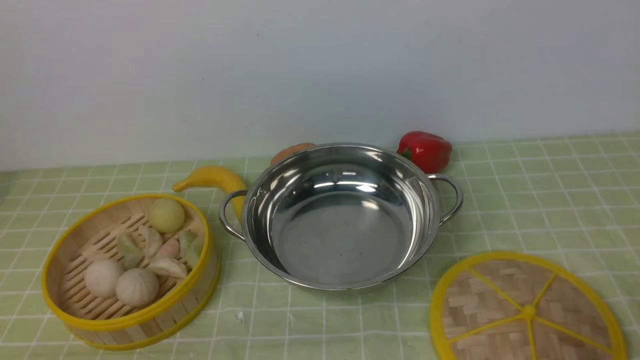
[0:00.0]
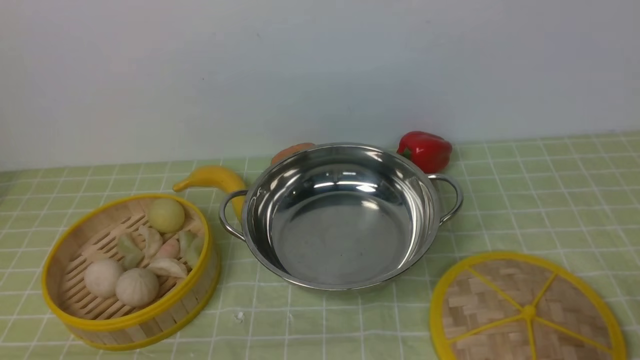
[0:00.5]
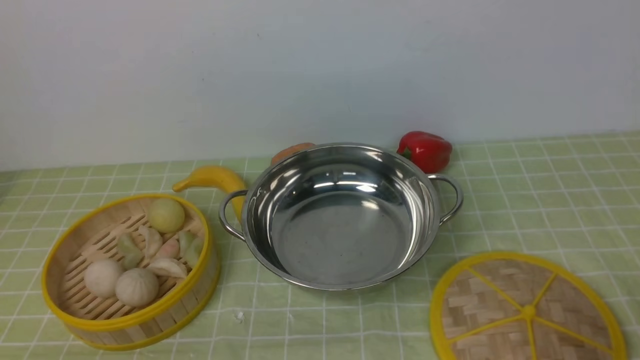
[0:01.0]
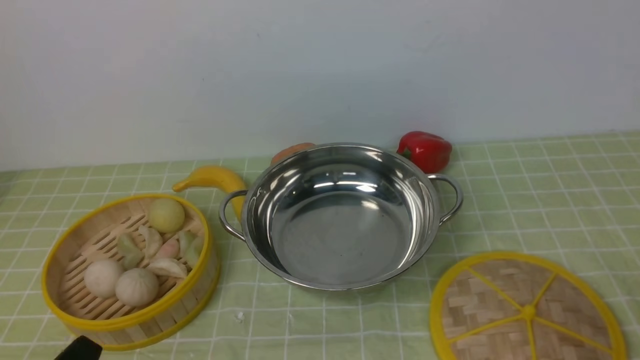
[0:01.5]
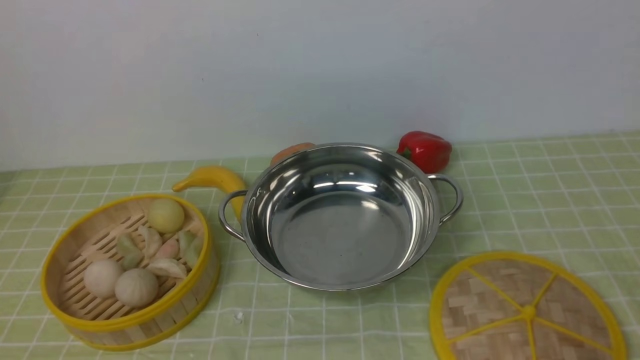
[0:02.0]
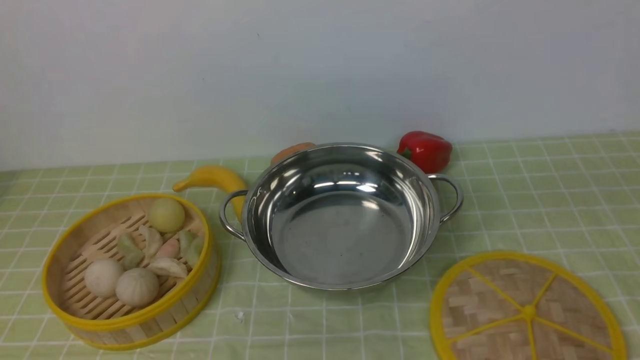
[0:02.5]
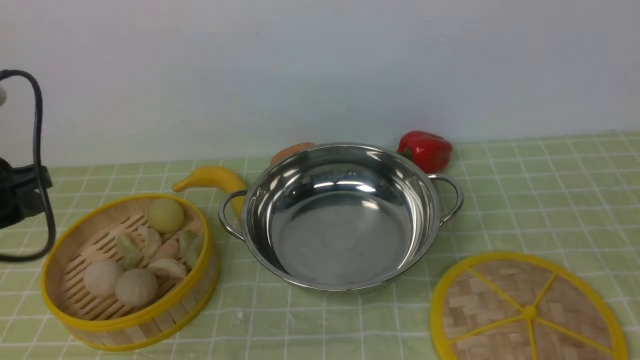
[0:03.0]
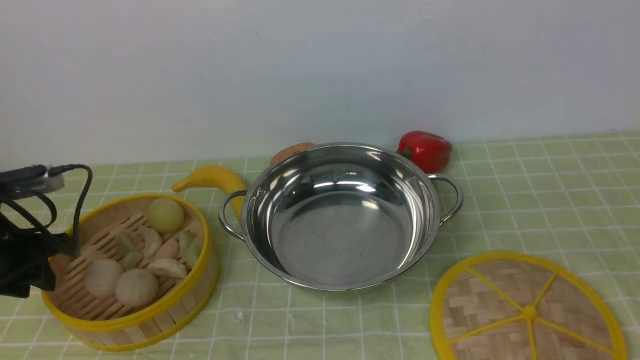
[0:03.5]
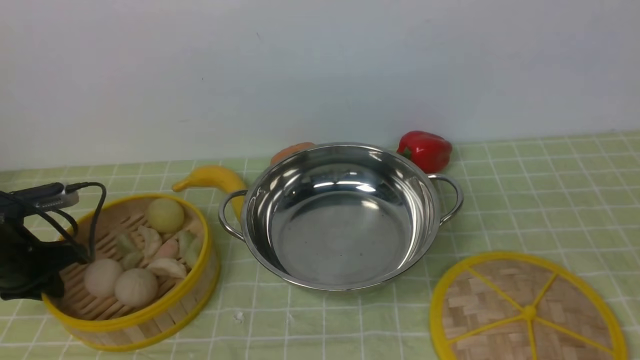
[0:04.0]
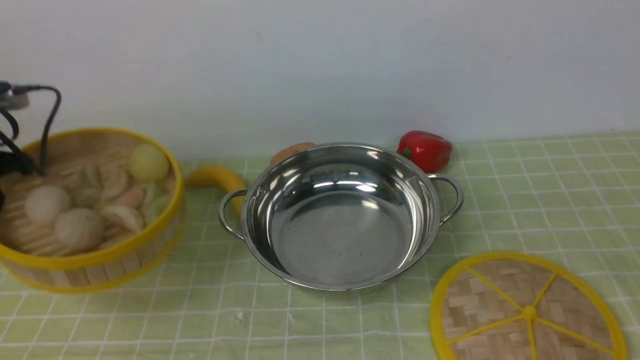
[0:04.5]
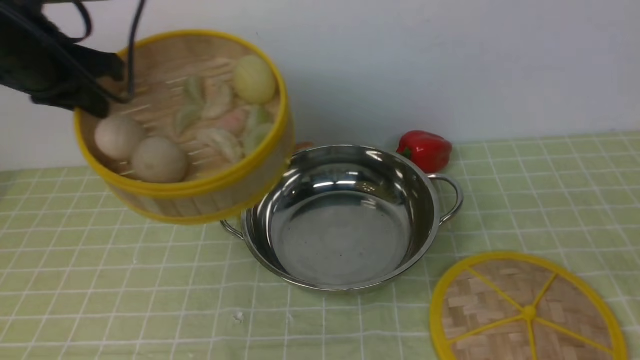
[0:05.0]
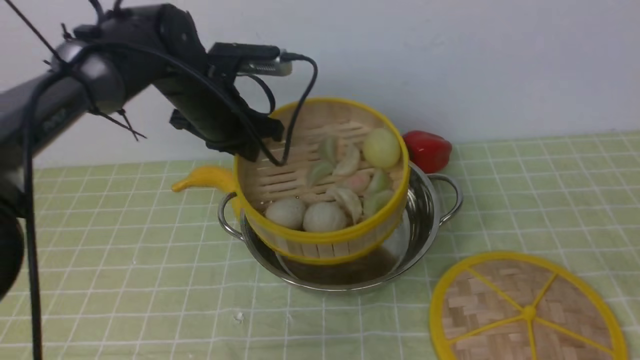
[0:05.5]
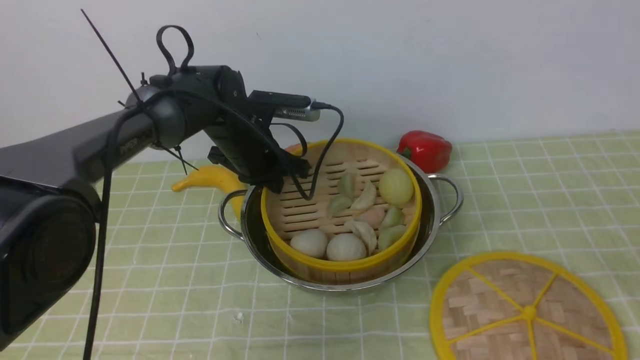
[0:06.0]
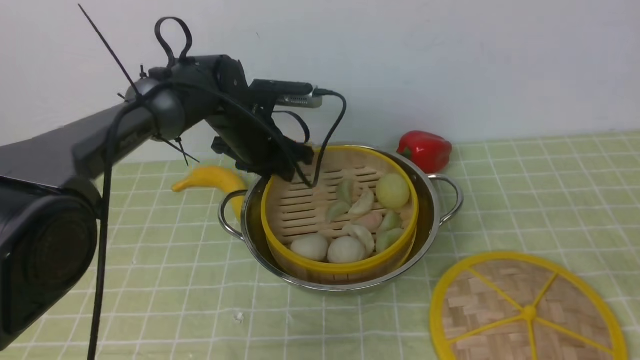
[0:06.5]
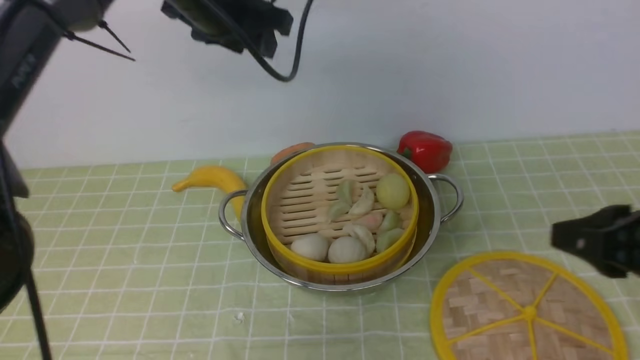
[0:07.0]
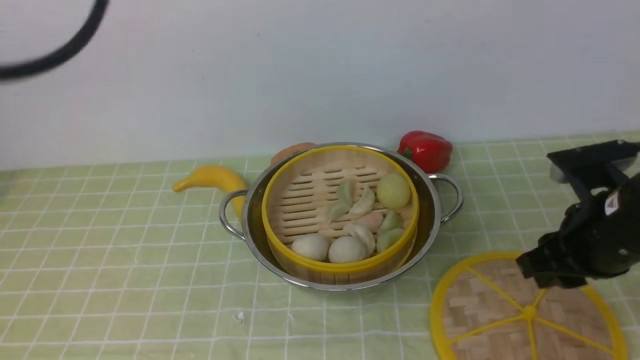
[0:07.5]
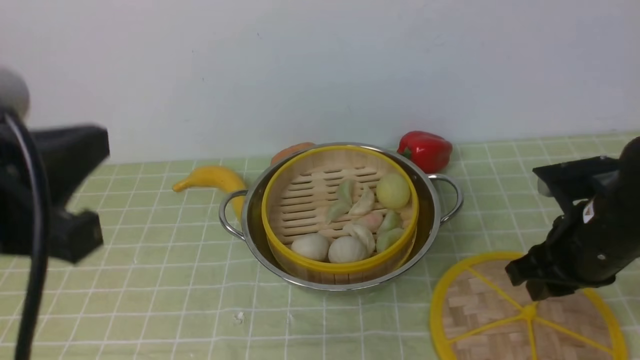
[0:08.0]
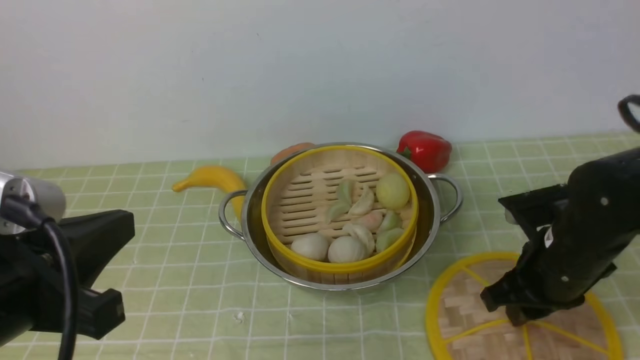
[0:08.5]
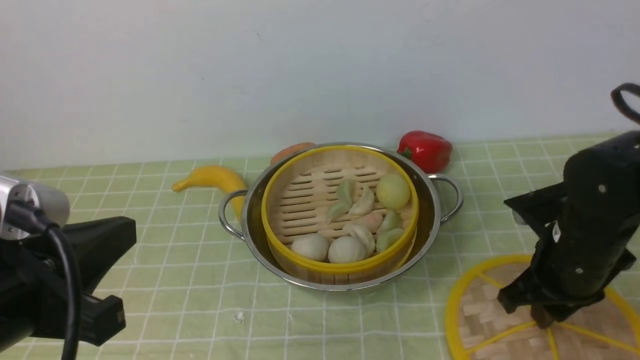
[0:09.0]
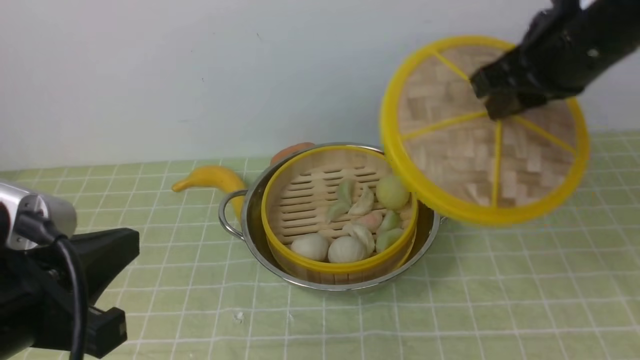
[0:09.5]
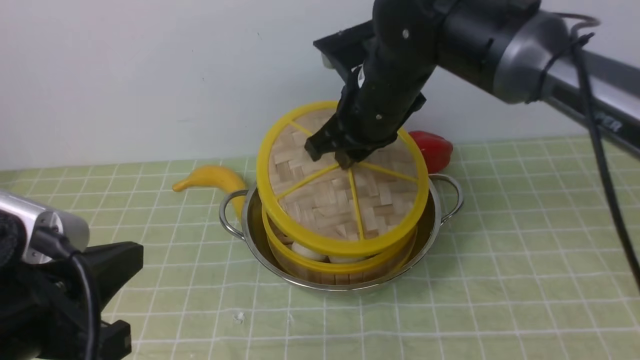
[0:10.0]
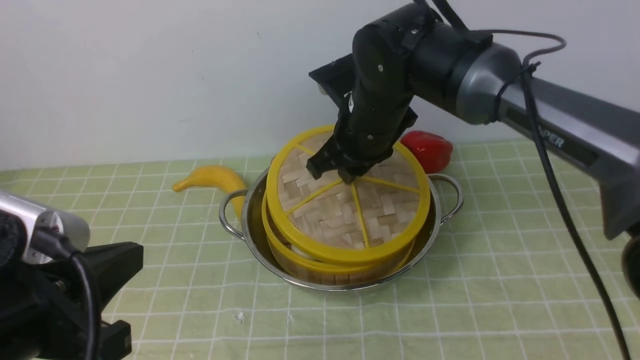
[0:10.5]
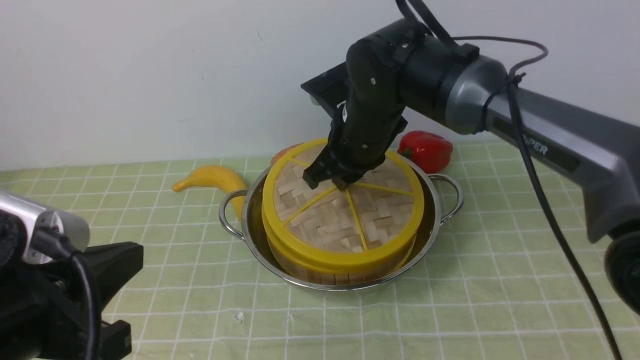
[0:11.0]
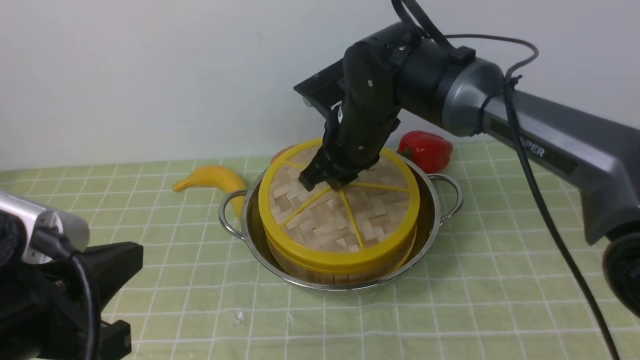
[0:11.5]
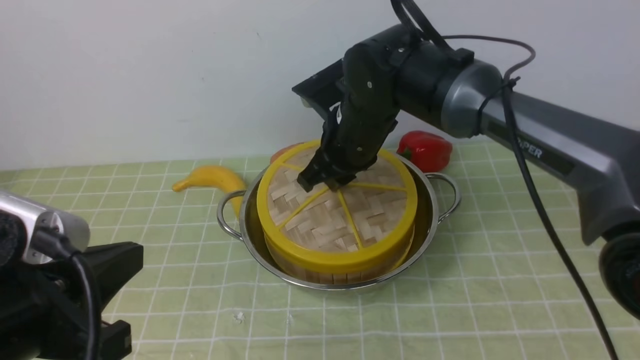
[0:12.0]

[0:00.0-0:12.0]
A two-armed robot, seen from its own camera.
Task of the whole recording: place the steamer in the pot on the green tablecloth, and put the lid on the steamer.
Step, 0:00.0 to 0:05.0: use the left arm to lift the steamer closest to it.
Step, 0:05.5 to 0:06.5: use the left arm to put the steamer into the iron steamer pot in the middle.
Step, 0:07.0 to 0:09.5: use the right arm to lift the lid of the steamer.
0:02.0 to 0:04.0: The left gripper goes roughly 30 cm forward and to the left.
0:04.0 to 0:06.0: The left gripper is displaced to the right and forward by some 30 cm, and closes.
0:06.0 to 0:08.0: The right gripper shifts approximately 15 cm forward and to the left, while the left gripper heads backward and upward, covering about 40 cm, and opens, then closes again.
0:08.0 to 0:10.0: The right gripper heads to the left, upward and forward, covering about 20 cm. Meanwhile the left gripper travels downward by some 10 cm.
0:10.0 to 0:12.0: The right gripper heads downward, covering some 10 cm.

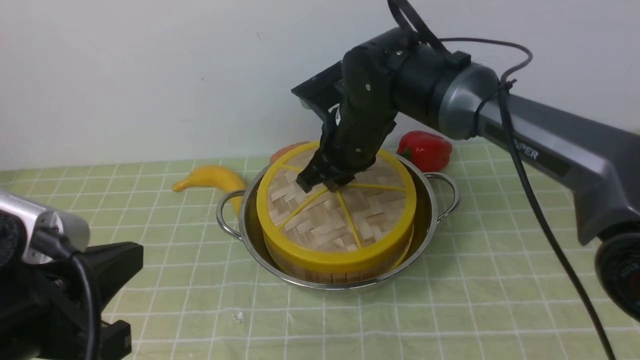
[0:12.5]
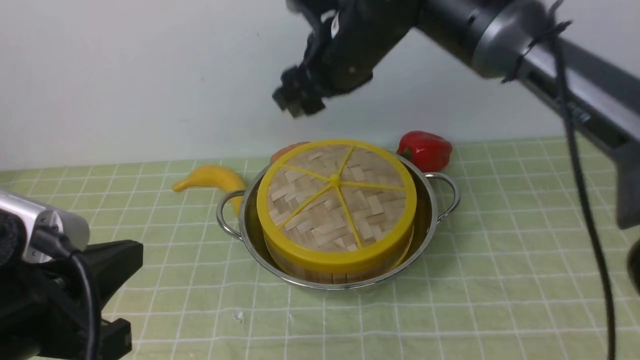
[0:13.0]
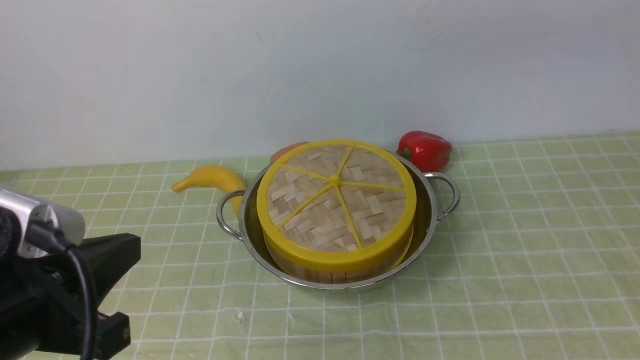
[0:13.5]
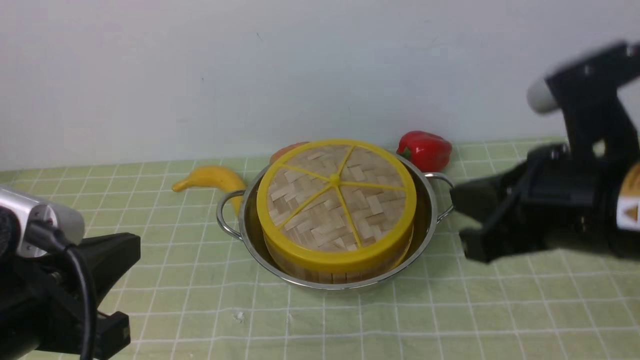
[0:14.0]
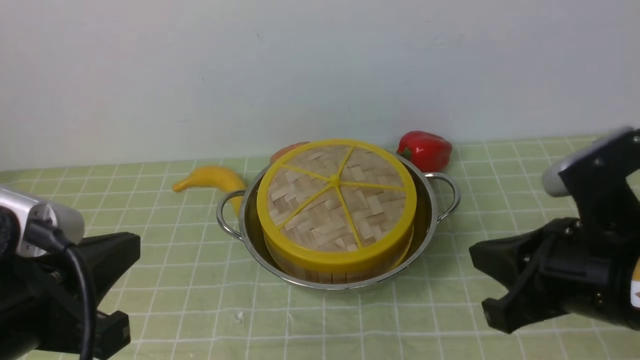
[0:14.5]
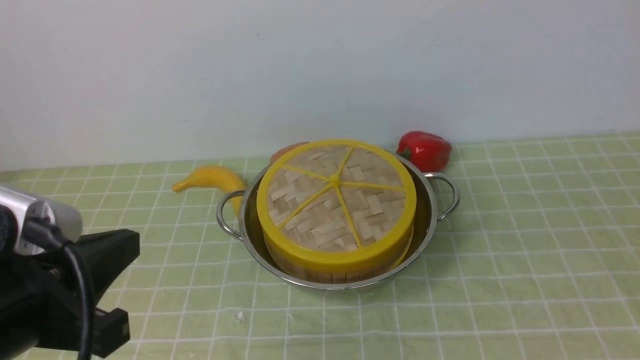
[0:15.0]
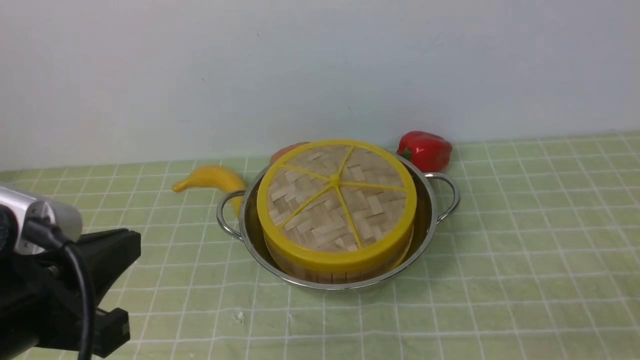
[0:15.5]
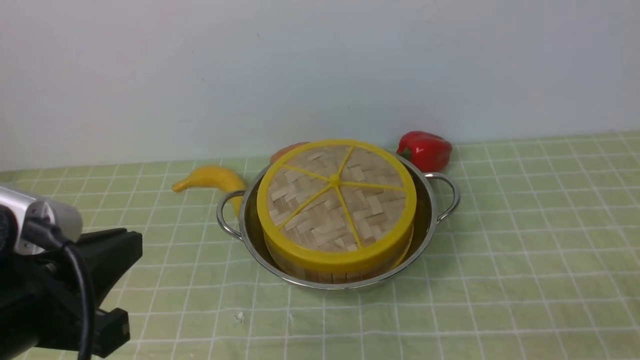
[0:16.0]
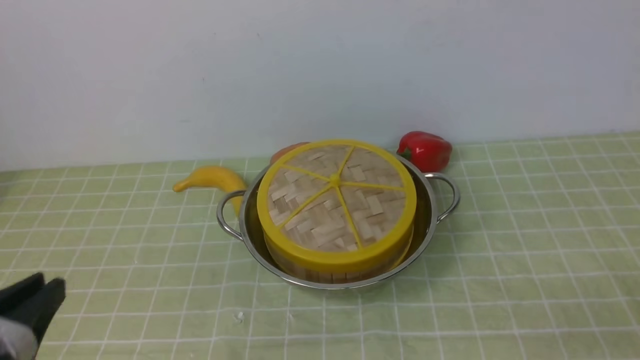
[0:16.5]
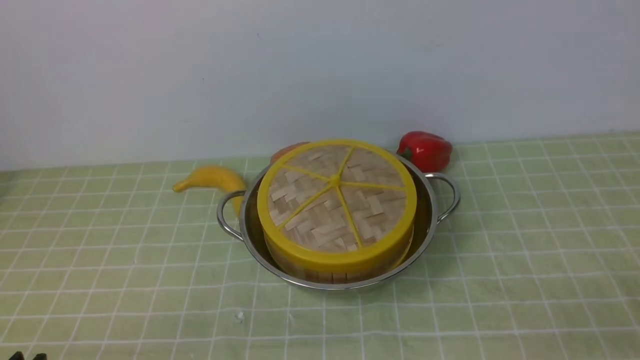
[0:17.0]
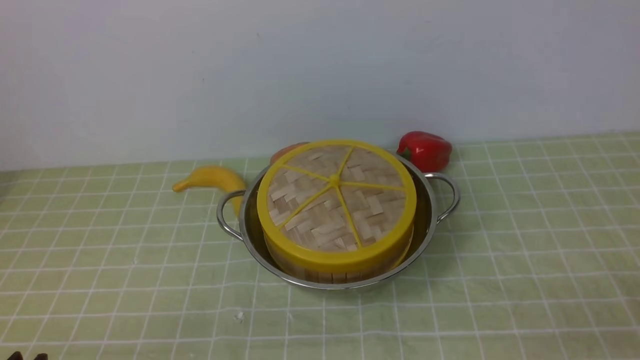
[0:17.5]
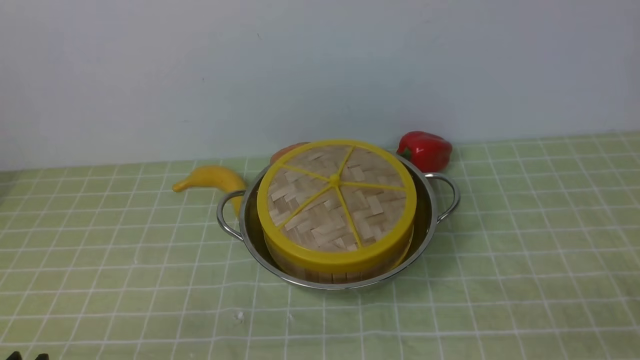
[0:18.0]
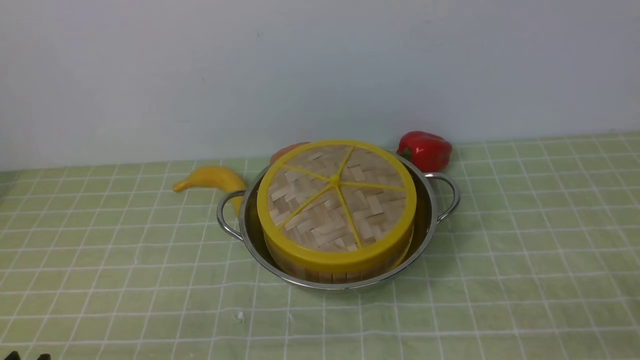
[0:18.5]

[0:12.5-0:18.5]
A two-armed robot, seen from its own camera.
Task of the whole recording: place the steamer in the pot on the green tablecloth, and put the lid on the steamer.
0:12.5 to 0:14.5: The right gripper travels backward and to the right by some 30 cm, travels upward and back again, about 25 cm each way, and closes its fingers.
0:14.5 to 0:16.5: The right gripper moves to the right, backward and downward, roughly 20 cm, and opens.
0:16.5 to 0:18.5: The left gripper is displaced downward by about 10 cm.

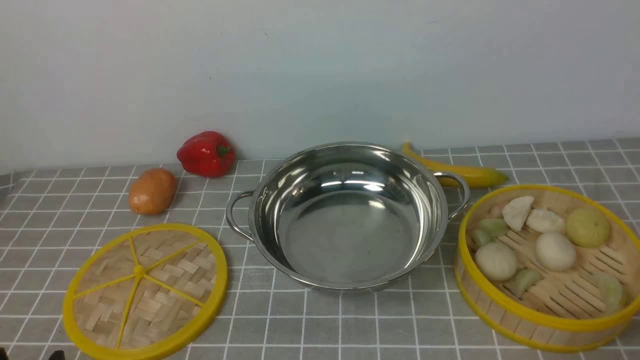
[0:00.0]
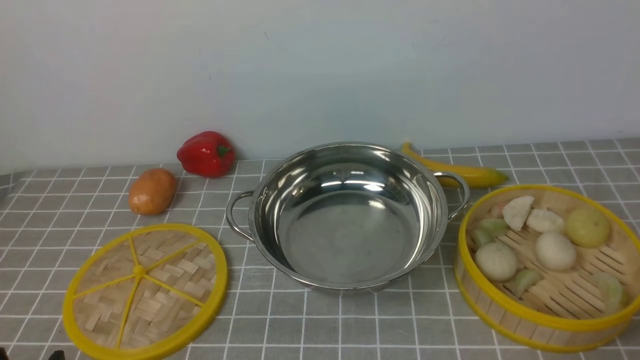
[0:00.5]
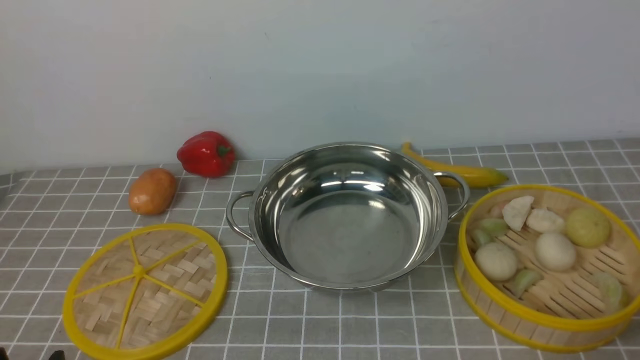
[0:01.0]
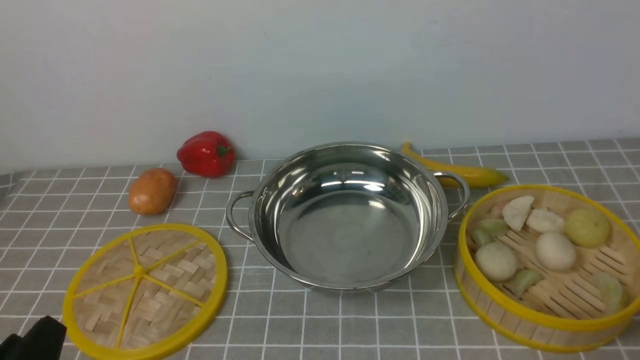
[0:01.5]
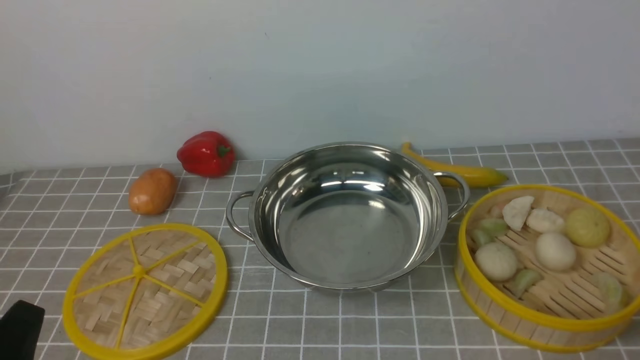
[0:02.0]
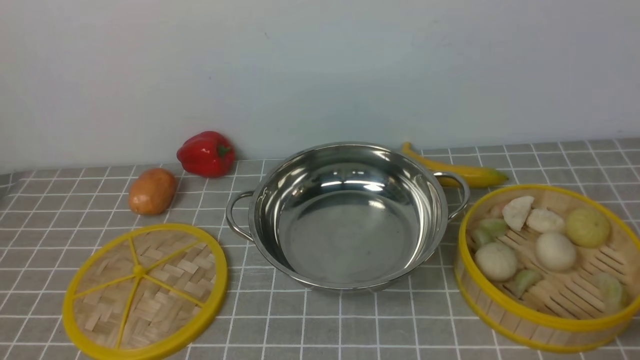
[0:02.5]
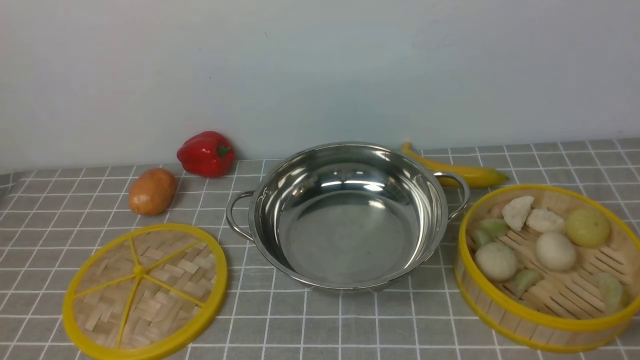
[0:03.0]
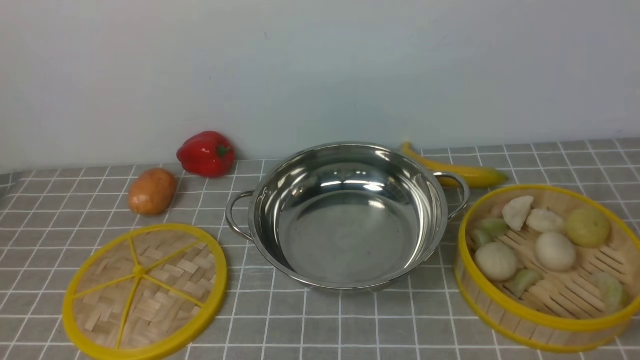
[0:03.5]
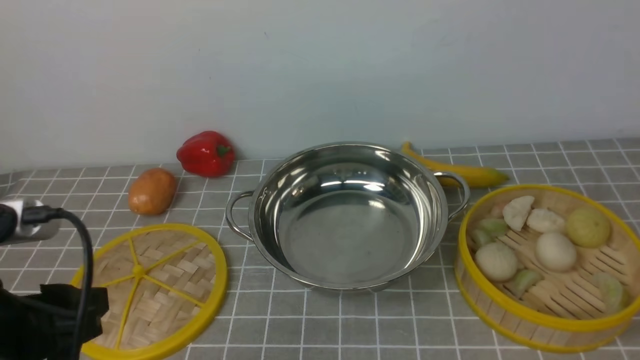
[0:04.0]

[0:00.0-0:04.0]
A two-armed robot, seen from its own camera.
Task of the whole recording: place the steamer in the pot on the grey tablecloth, and put the lid on the steamer.
0:02.0 to 0:04.0: The left gripper moves upward and forward, some 10 cm.
